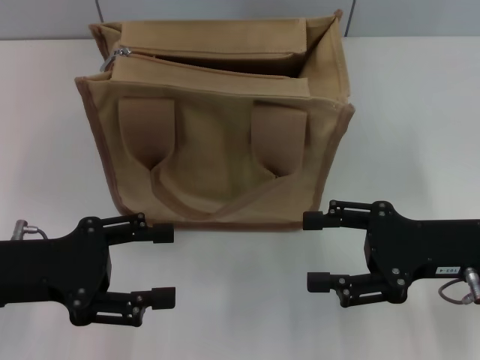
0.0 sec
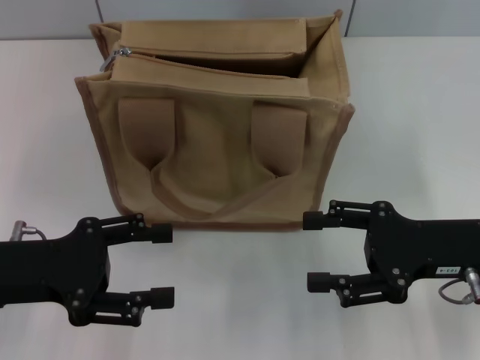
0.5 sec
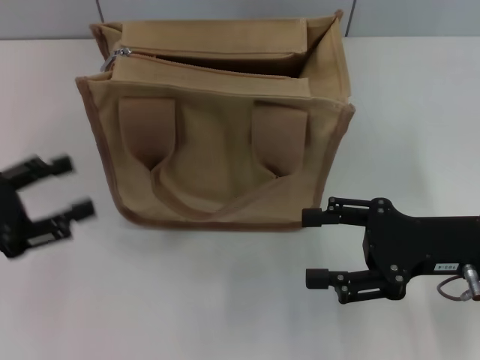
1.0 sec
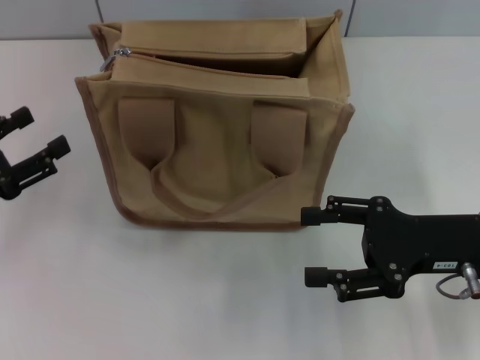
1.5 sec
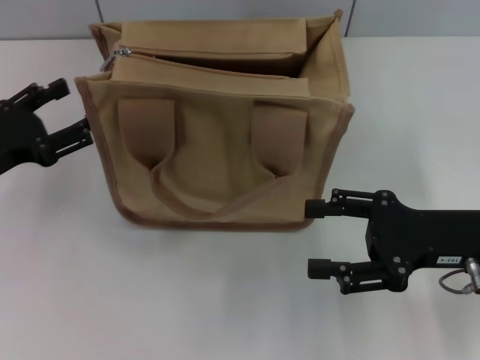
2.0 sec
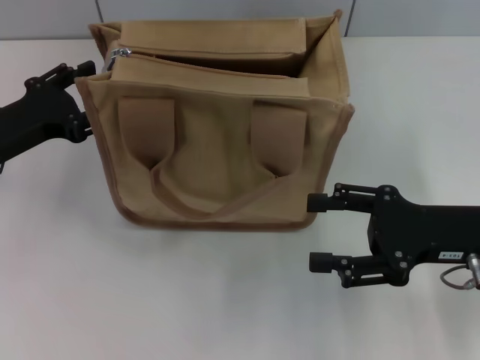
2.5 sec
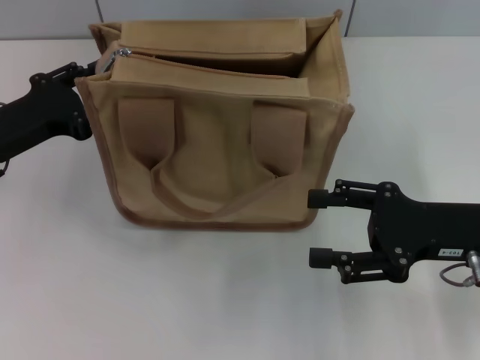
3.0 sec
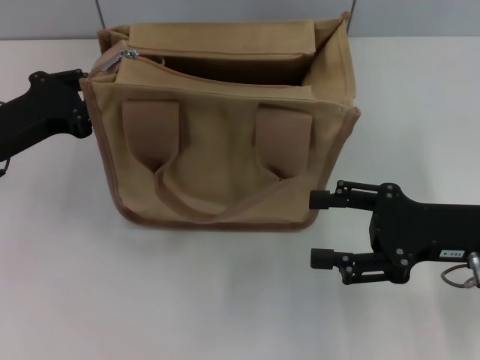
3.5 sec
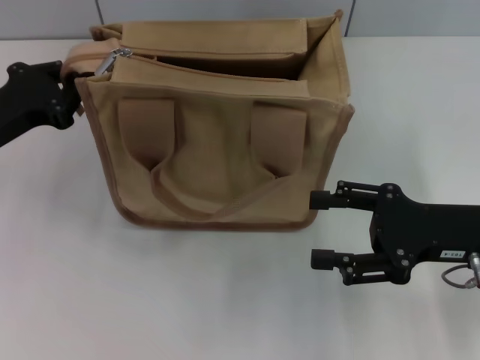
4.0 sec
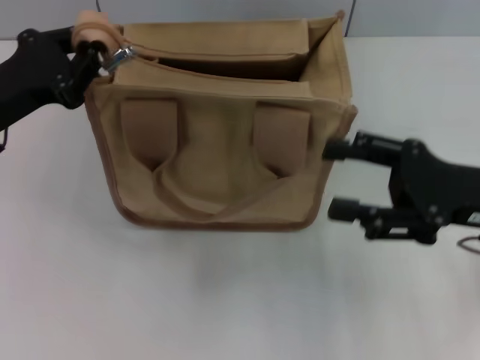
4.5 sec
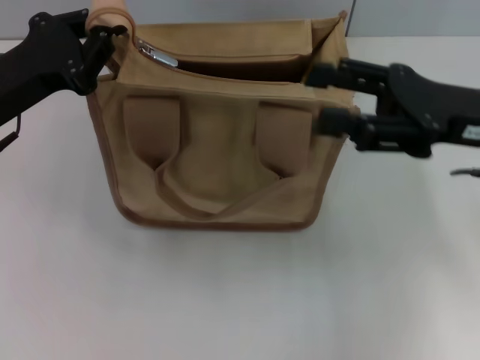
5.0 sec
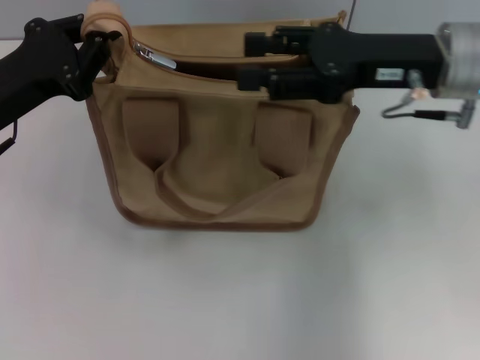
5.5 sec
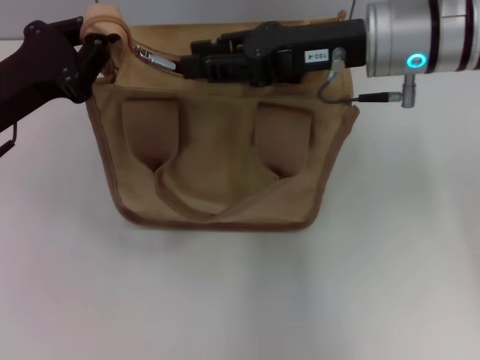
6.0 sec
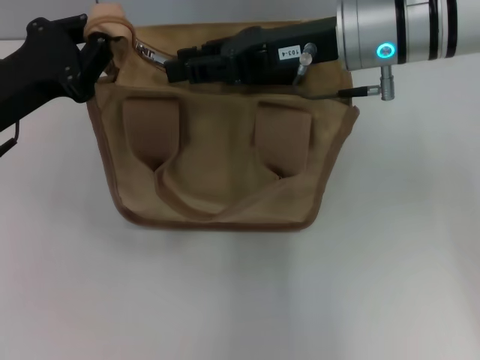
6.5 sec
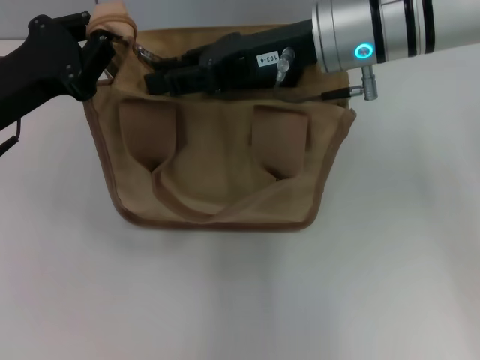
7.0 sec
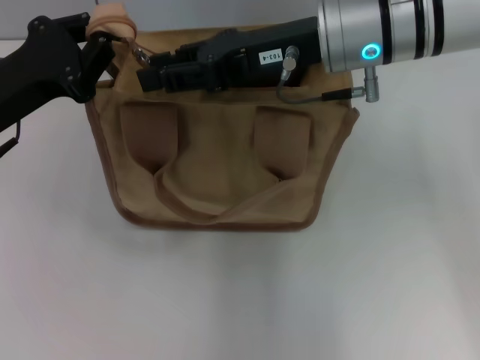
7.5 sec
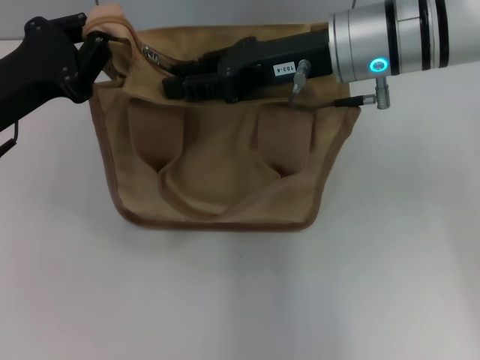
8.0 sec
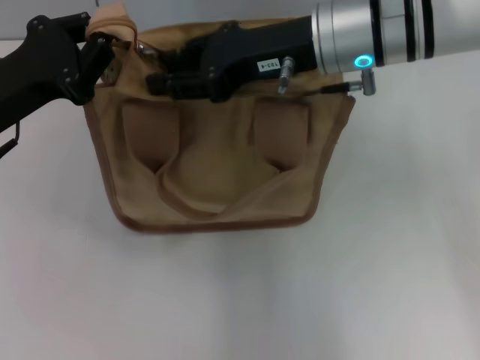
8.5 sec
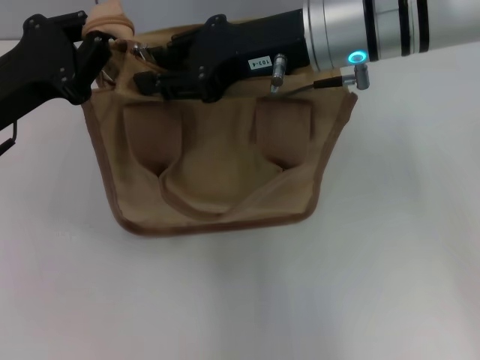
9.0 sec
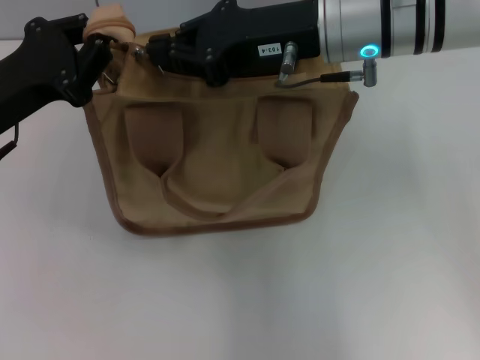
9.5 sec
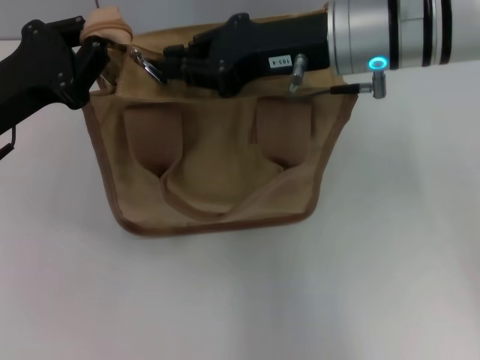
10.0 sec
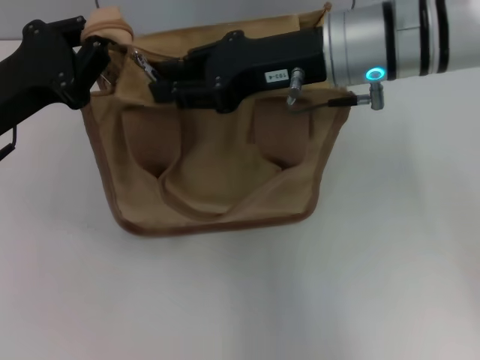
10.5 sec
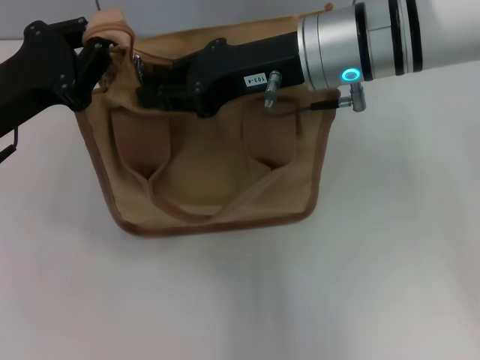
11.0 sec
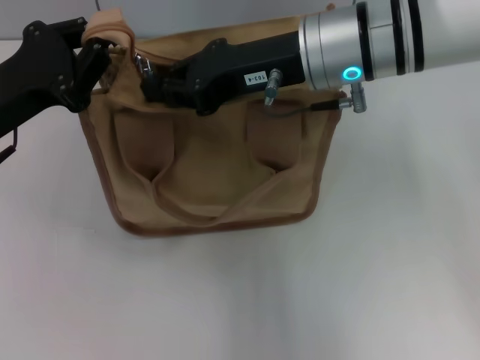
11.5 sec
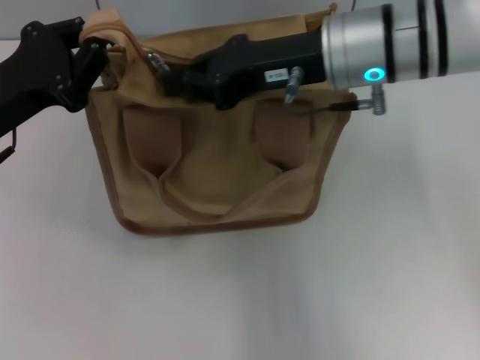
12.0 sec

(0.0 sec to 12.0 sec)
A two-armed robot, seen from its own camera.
0.0 sec - 2.0 sec: The left gripper goes roughly 5 cm forward.
2.0 sec - 4.0 sec: The left gripper closes up.
4.0 sec - 6.0 sec: The right gripper shifts approximately 20 cm forward, to the left and upward.
6.0 sec - 8.0 sec: There are only small adjustments of the grippers.
8.0 sec - 10.0 sec: The right gripper closes its fingers.
10.0 sec - 12.0 sec: The right gripper opens, then closes once more.

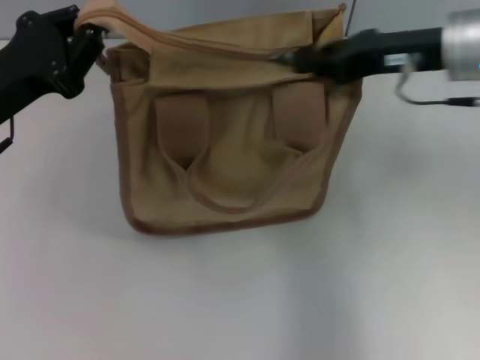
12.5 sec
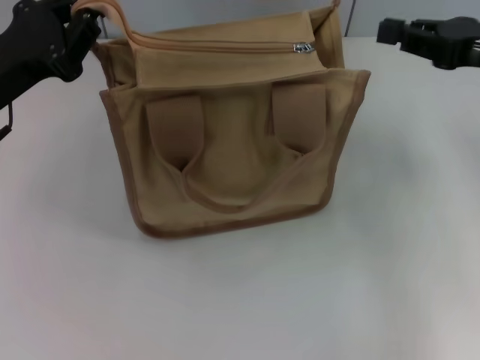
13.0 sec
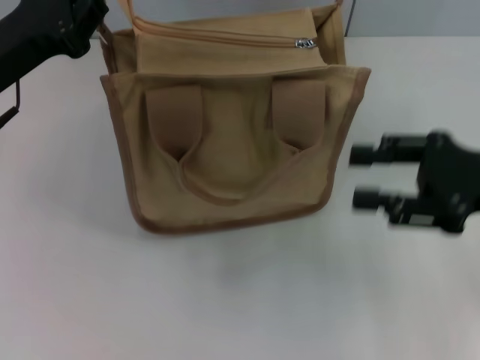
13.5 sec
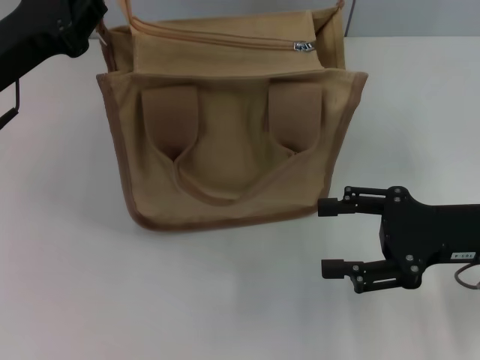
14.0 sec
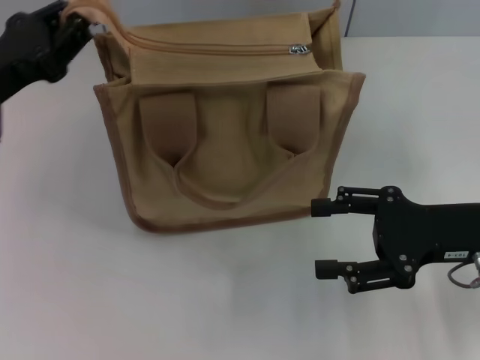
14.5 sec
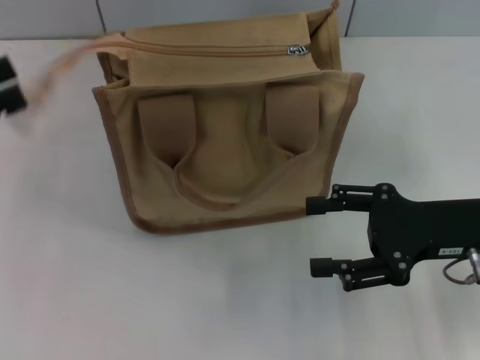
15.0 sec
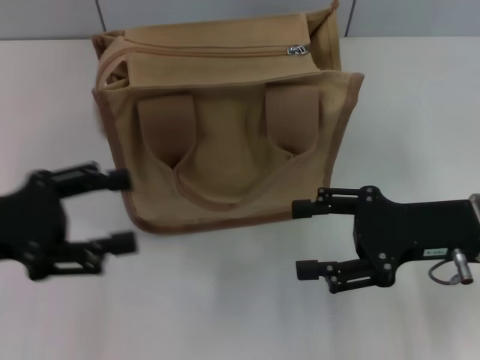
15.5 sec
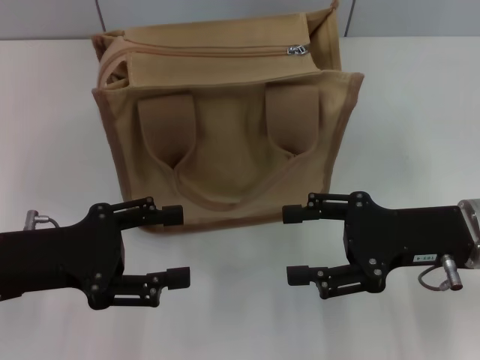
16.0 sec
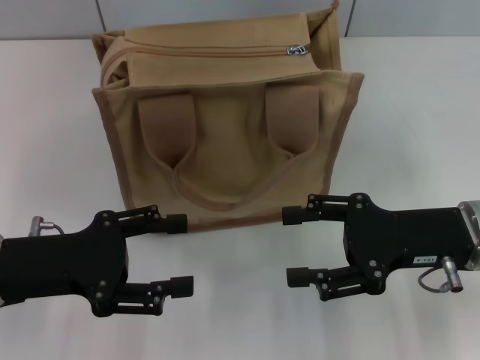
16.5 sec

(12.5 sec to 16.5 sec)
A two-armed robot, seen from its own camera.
Step, 13.0 sec - 14.5 sec: Grab the zipper with your left hand.
12.5 sec - 14.5 sec: The right gripper moves backward and downward, about 15 cm, and opens.
14.5 sec - 16.5 sec: The left gripper moves backward, roughly 10 cm, moves some 10 cm to the left and comes back, and opens its fingers.
